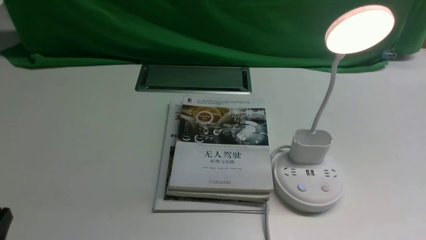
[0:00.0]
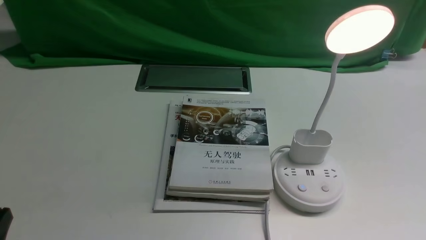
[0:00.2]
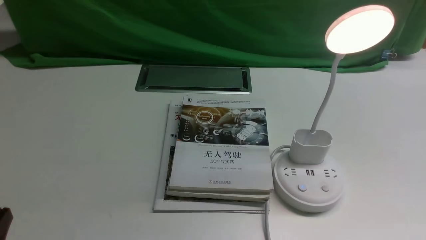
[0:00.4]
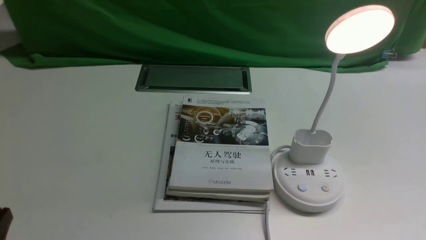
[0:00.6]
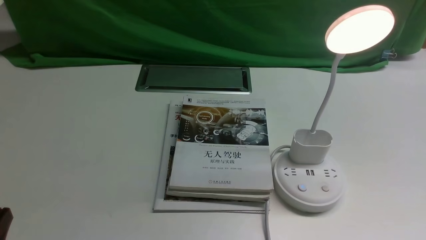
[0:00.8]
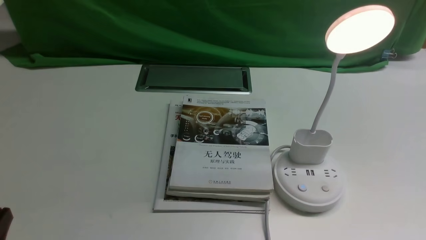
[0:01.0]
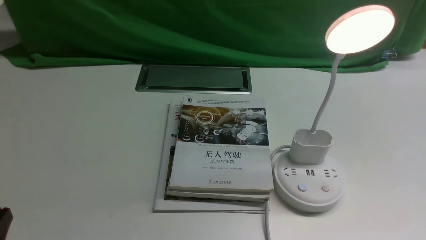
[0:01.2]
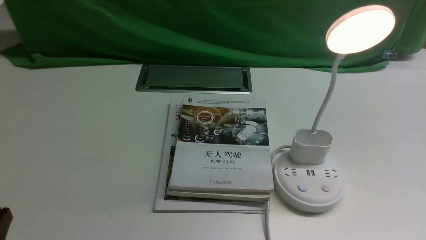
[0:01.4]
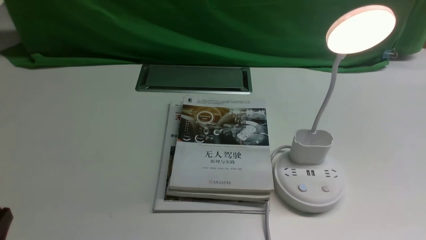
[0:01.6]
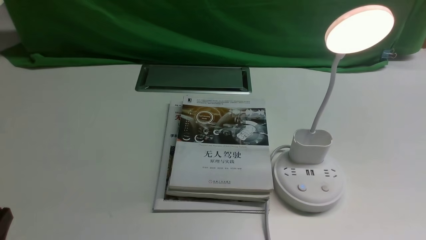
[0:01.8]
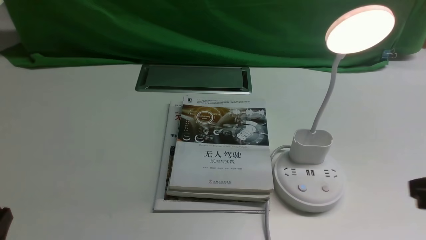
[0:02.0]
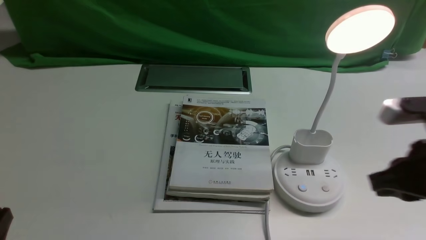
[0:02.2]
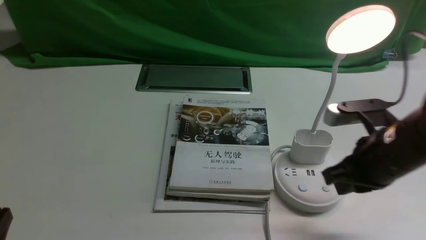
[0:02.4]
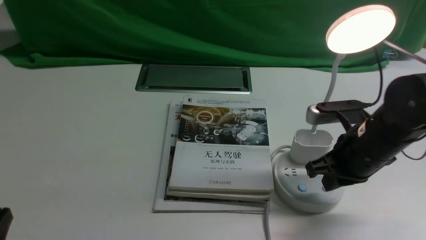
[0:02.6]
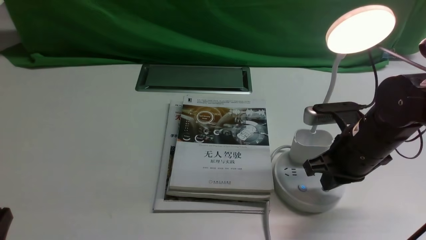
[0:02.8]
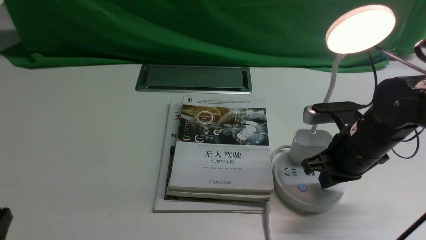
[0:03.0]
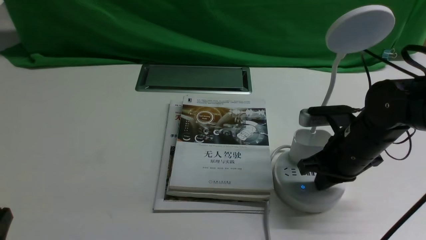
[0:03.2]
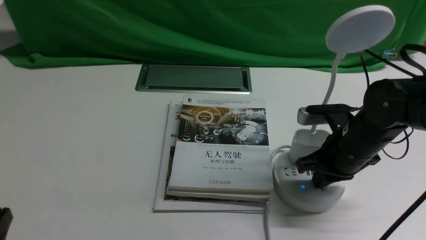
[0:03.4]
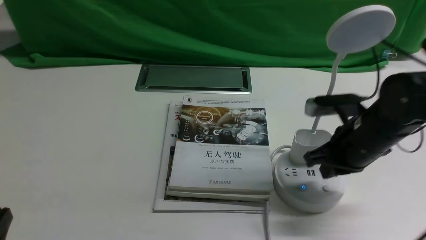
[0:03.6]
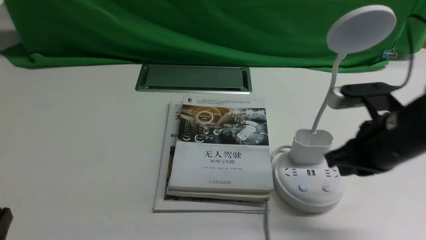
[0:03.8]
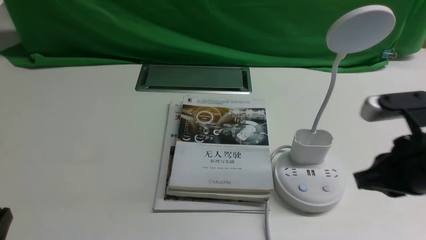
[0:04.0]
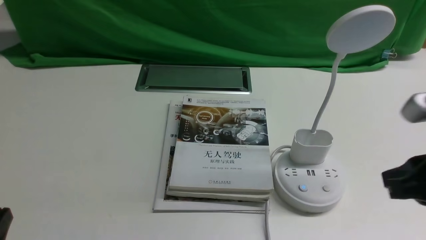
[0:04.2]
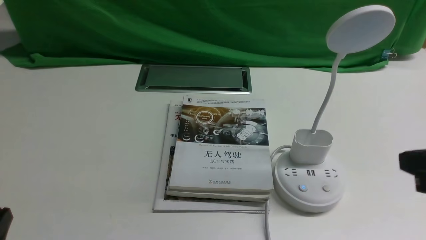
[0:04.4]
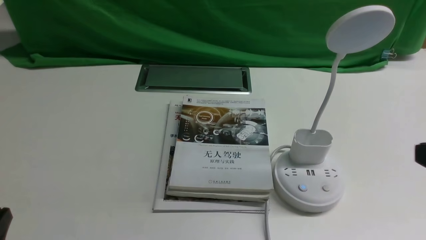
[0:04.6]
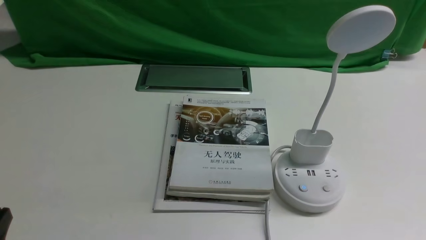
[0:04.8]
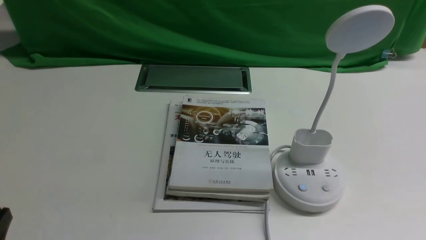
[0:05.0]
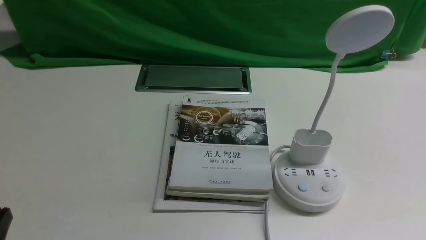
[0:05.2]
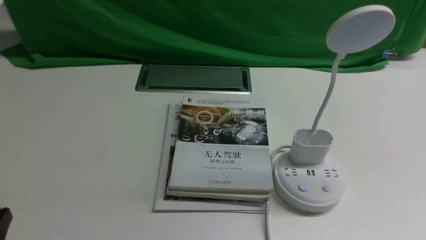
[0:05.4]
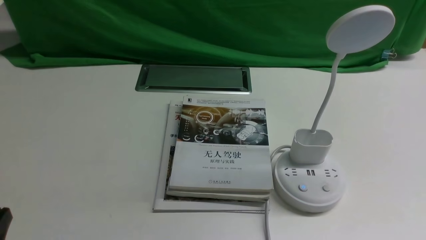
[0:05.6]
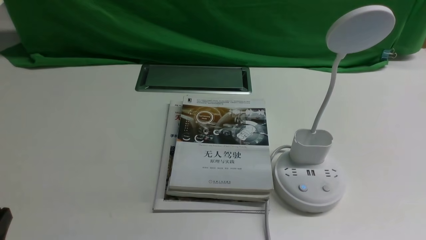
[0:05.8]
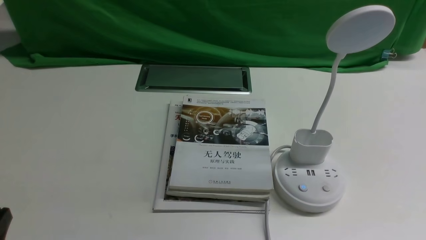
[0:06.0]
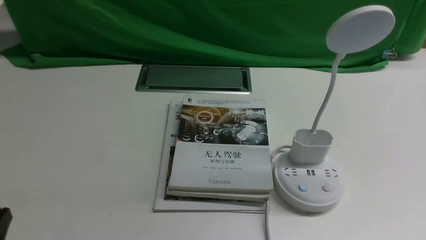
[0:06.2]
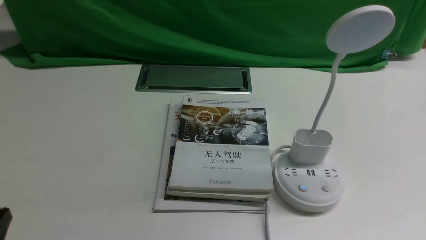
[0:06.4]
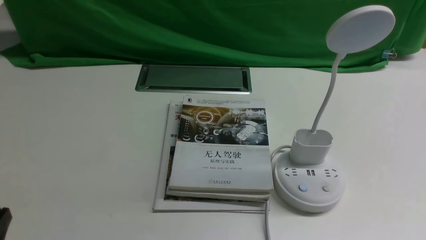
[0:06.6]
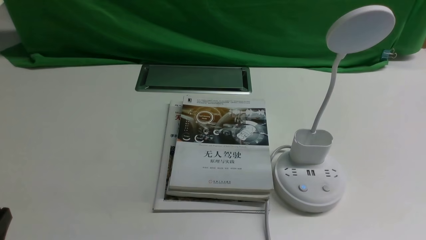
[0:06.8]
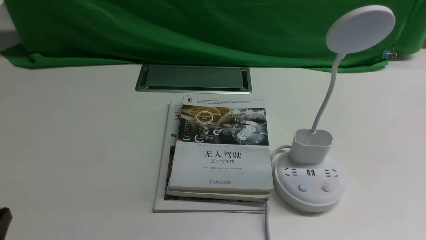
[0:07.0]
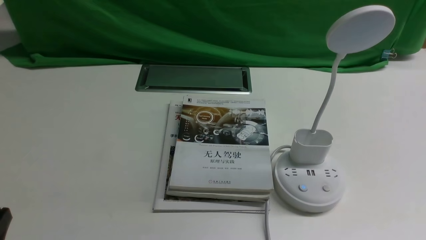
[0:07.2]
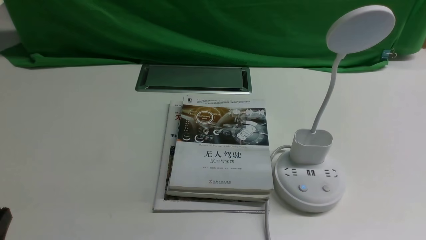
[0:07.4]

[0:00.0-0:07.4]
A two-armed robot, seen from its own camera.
Task of the whole recording: turn off the desk lamp on the white desktop by hand.
Step, 0:00.0 to 0:03.6: use the right arm to press the button switch on the lamp holder.
0:01.4 to 0:03.0: The right gripper is displaced forward and to the left by some 25 cm, and closes its fingers.
0:03.0 to 0:04.4: The right gripper goes some 20 cm backward, upward and to the right.
0:04.4 to 0:06.0: The right gripper moves downward and backward, about 15 cm.
0:06.0 to 0:07.4: Both grippers stay about where they are.

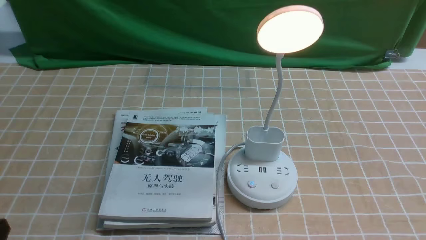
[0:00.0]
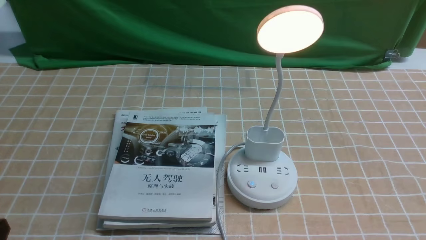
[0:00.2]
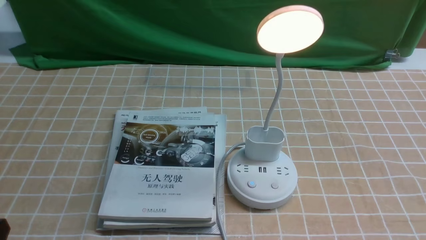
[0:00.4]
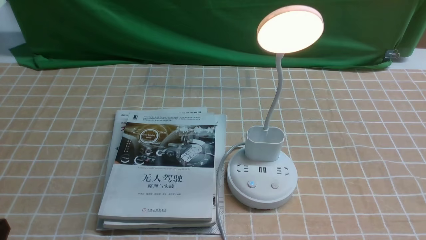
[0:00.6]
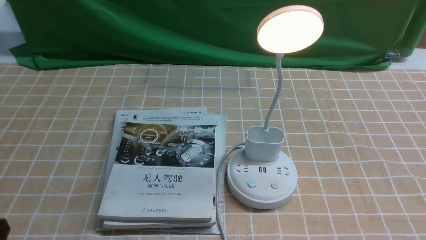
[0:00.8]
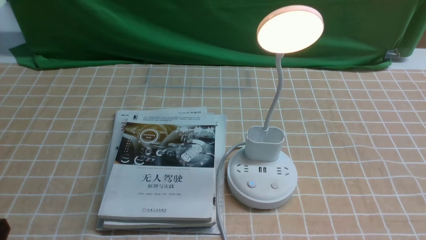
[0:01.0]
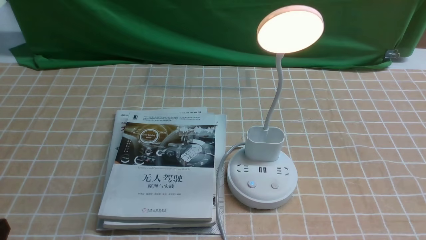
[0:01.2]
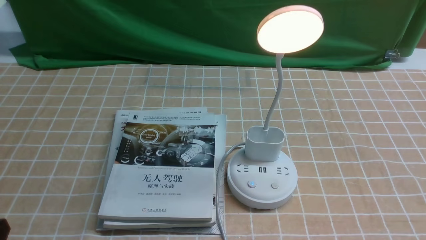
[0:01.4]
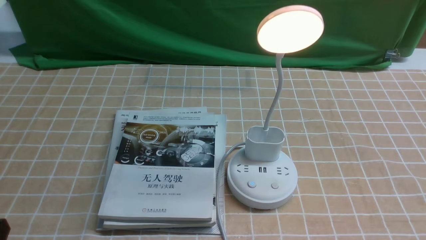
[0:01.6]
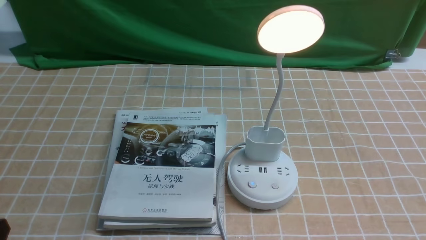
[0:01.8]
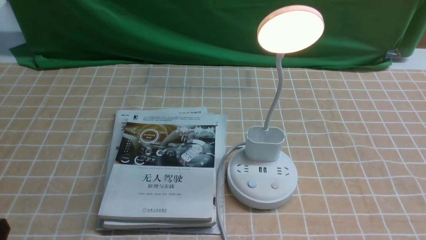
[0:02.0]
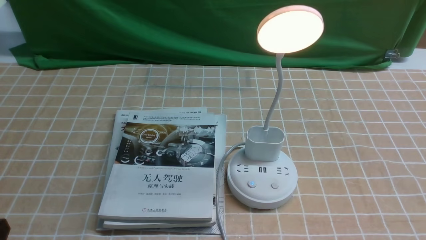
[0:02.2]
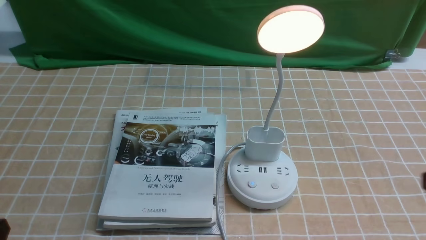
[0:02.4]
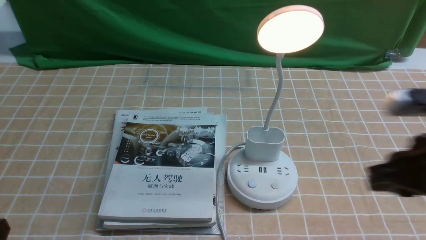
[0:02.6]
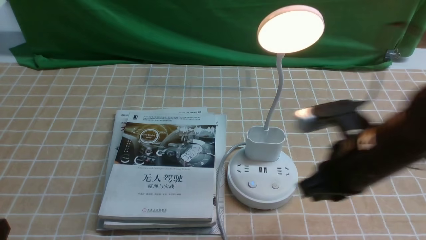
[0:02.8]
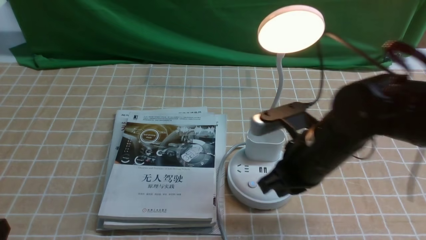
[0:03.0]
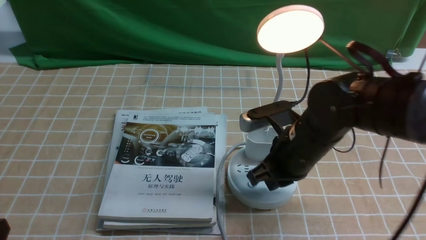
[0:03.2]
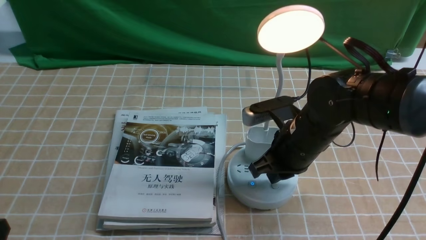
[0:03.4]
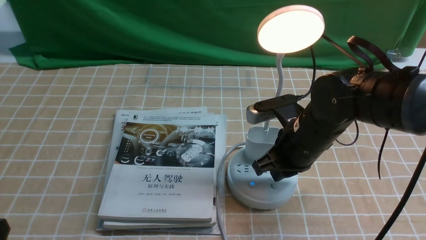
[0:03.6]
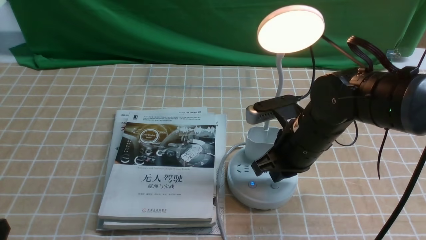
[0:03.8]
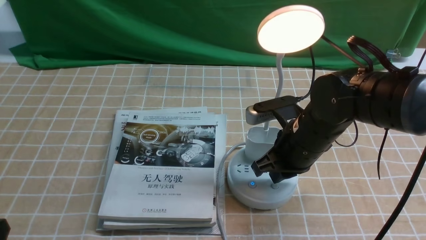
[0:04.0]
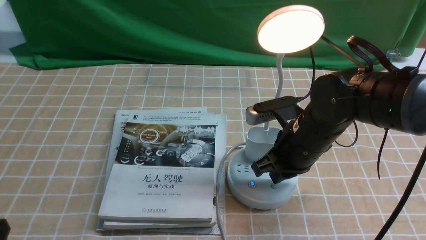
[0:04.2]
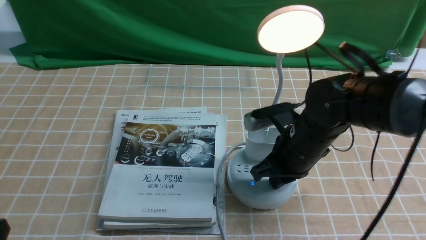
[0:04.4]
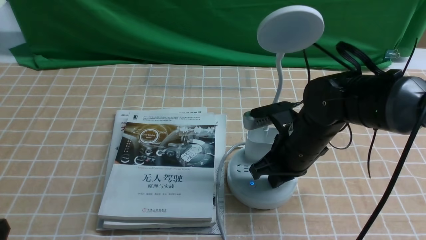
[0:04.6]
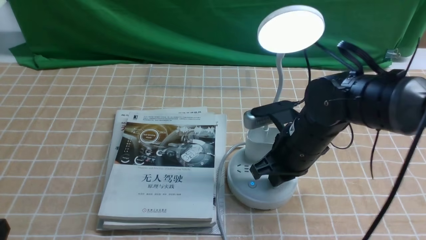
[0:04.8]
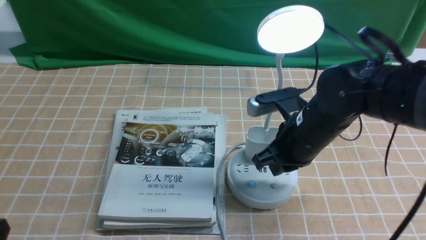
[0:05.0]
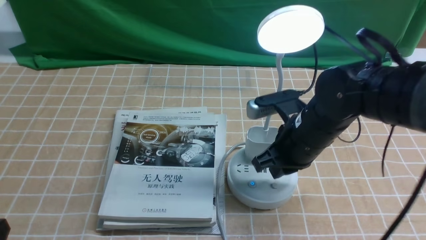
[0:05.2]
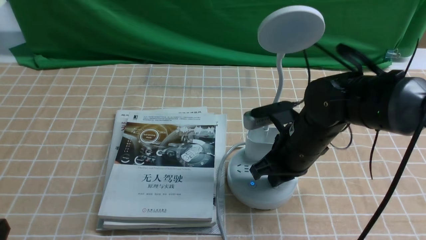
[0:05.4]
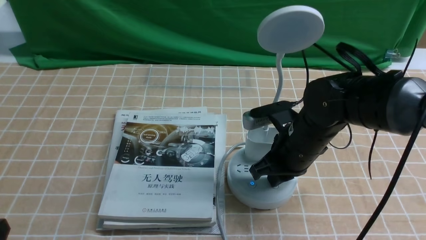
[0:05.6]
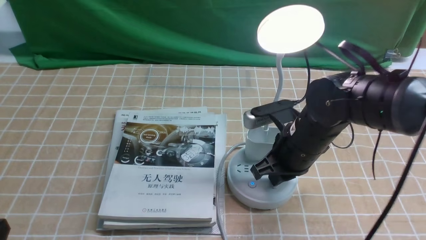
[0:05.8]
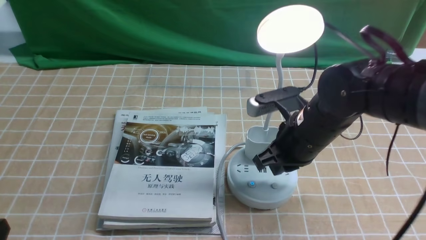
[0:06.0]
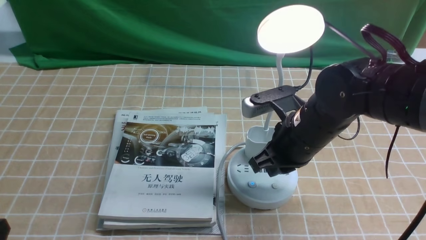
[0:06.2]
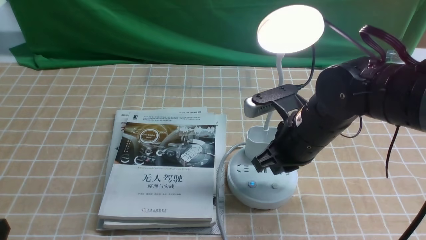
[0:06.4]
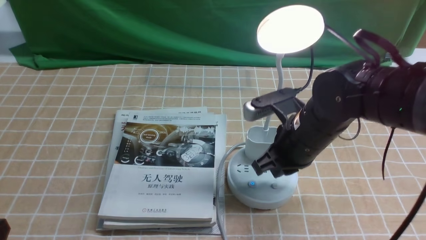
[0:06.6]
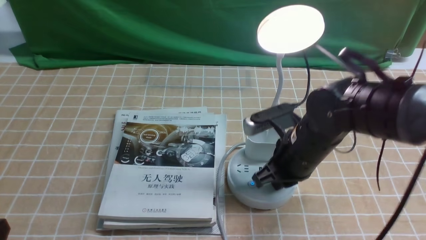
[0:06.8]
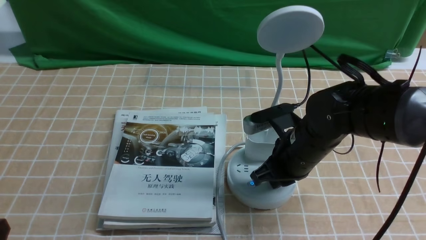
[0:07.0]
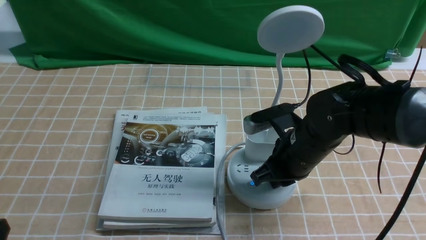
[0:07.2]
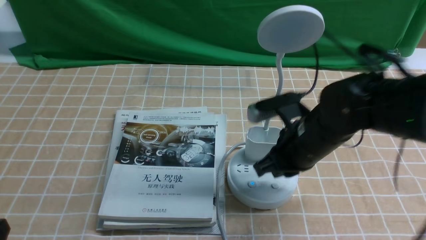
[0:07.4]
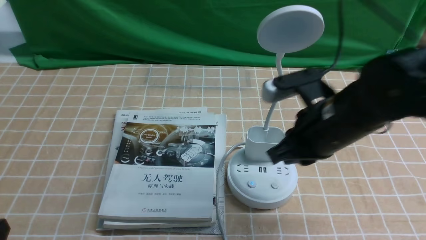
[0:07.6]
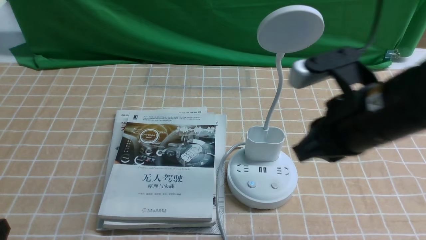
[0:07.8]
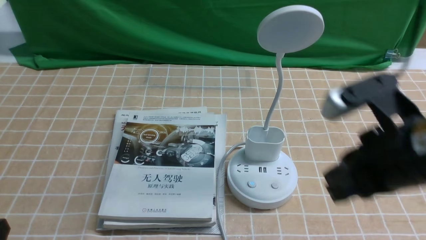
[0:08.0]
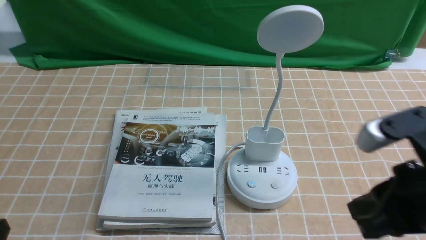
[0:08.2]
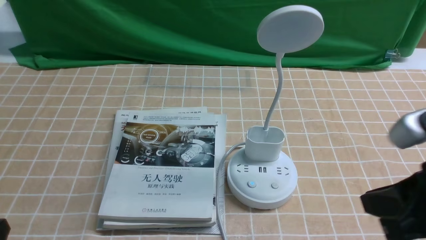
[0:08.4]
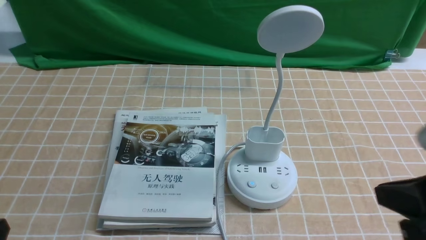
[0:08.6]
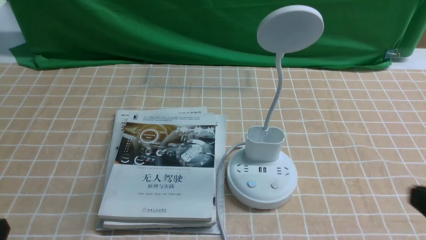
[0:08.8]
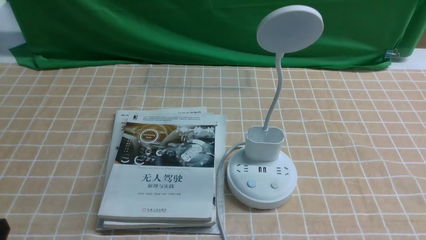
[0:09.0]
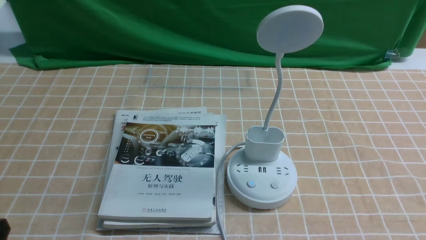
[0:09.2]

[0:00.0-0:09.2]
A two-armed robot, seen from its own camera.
Task of the whole recording: turn off the desk lamp on the light coffee tablecloth by hand.
Step, 0:00.0 to 0:07.2: use the right arm to press the button switch on the lamp holder.
0:01.6 to 0:03.0: The right gripper is displaced forward and to the left by approximately 25 cm, and closes up.
0:03.0 to 0:04.6: The right gripper shifts roughly 5 cm forward and downward.
0:06.2 to 0:07.6: There are only small adjustments of the grippers.
0:07.6 to 0:09.2: The right gripper travels backward and to the right by about 25 cm.
